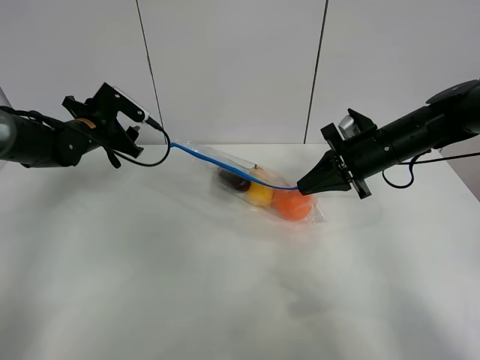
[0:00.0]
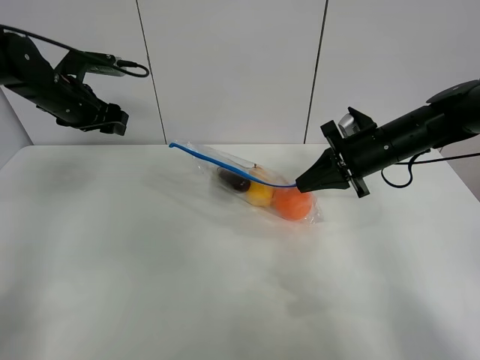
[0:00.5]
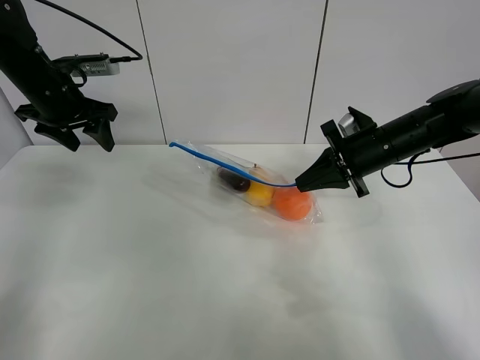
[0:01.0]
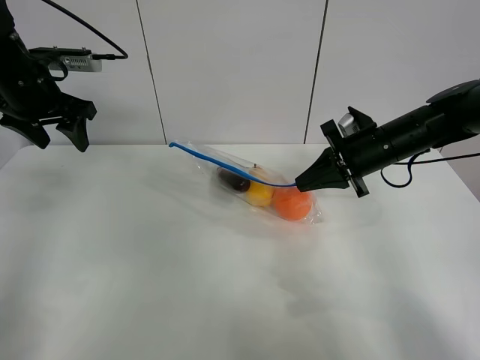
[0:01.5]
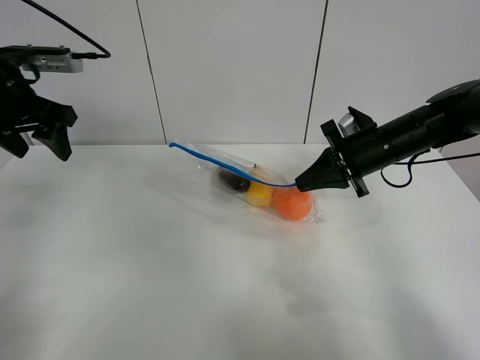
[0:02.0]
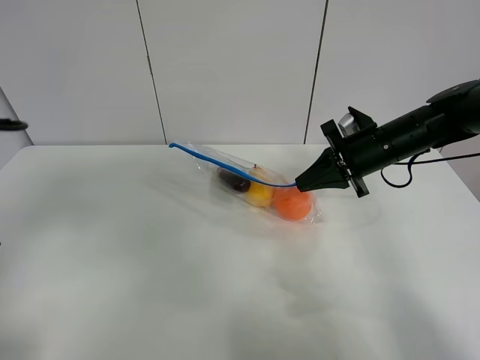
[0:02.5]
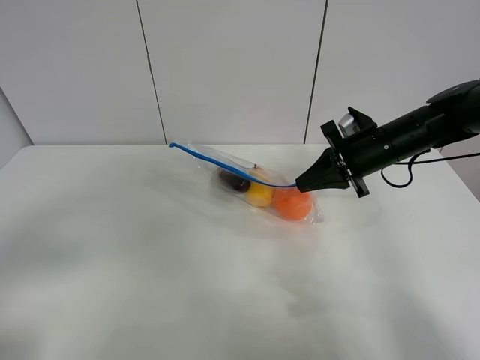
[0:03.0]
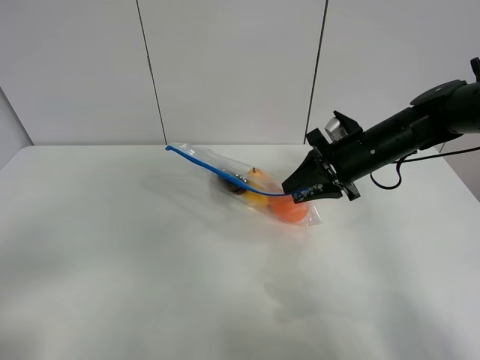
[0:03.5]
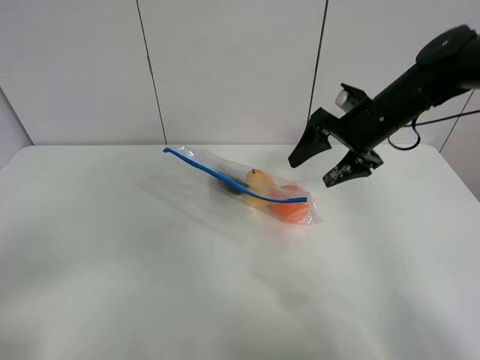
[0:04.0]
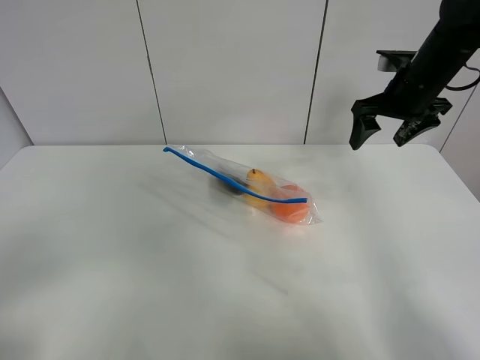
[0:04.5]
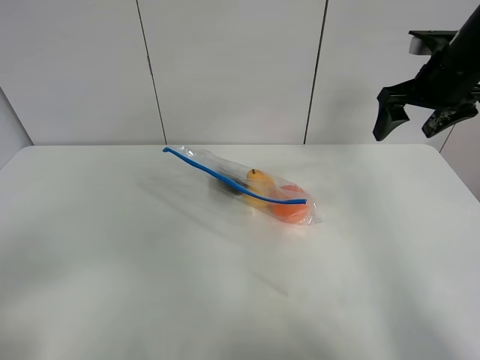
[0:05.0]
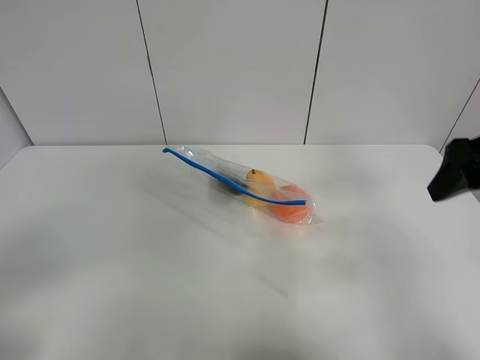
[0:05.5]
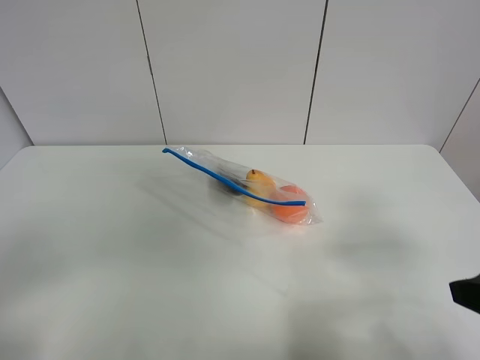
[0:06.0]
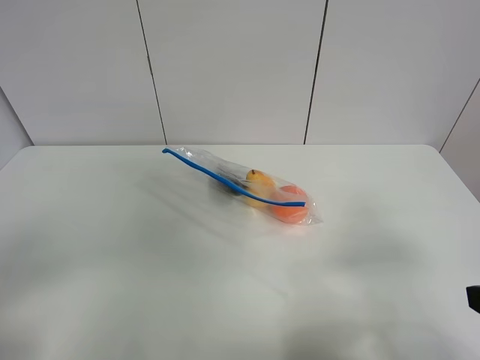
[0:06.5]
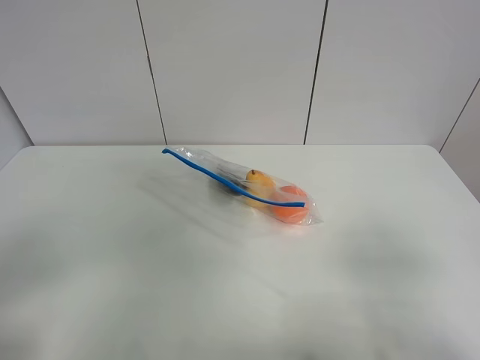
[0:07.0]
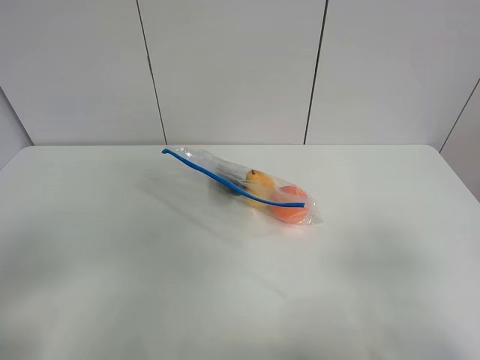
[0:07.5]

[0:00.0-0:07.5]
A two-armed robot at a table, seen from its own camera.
0:00.0 to 0:02.0: The left gripper shifts approximately 20 cm upward and backward.
0:02.0 to 0:04.0: The right gripper ends up some 5 cm from where it was, and opens up; the left gripper travels backward by some 35 cm.
0:04.0 to 0:05.5: The right gripper shifts some 20 cm backward and upward.
0:05.5 to 0:07.5: The right gripper is displaced backward by some 20 cm.

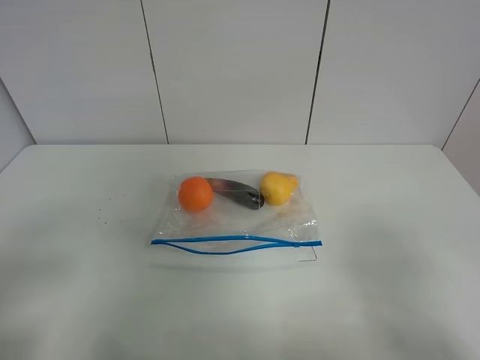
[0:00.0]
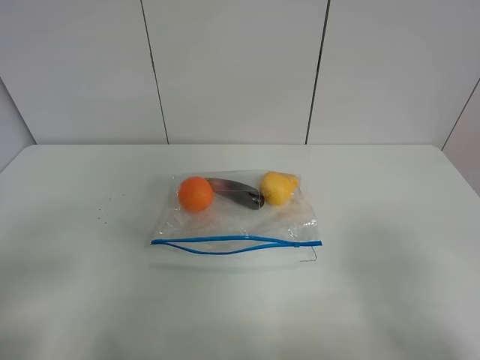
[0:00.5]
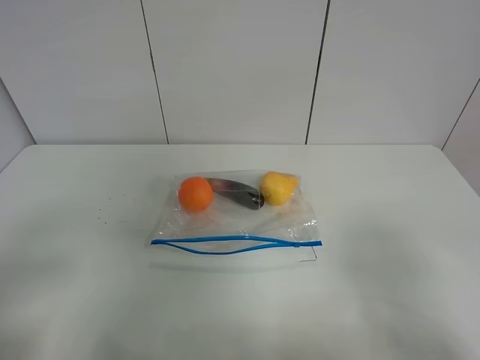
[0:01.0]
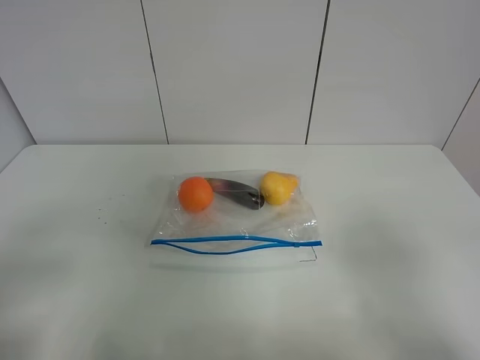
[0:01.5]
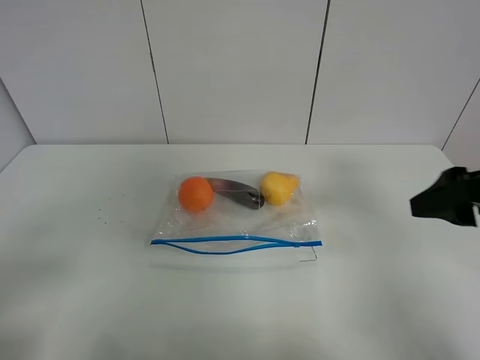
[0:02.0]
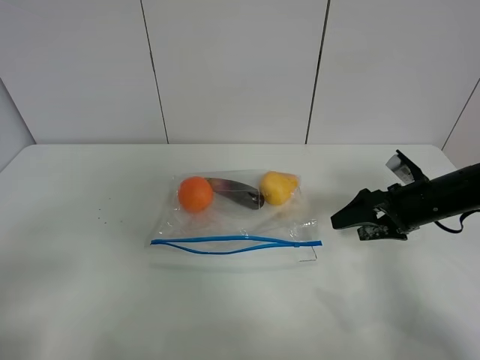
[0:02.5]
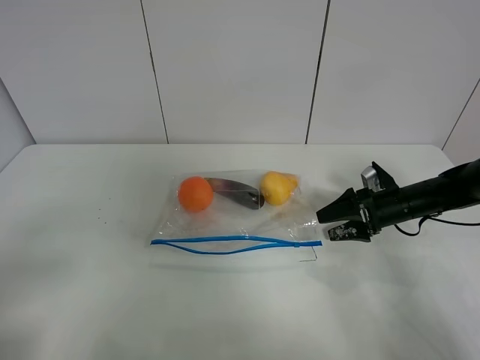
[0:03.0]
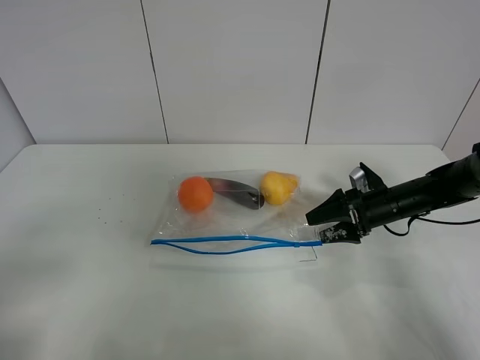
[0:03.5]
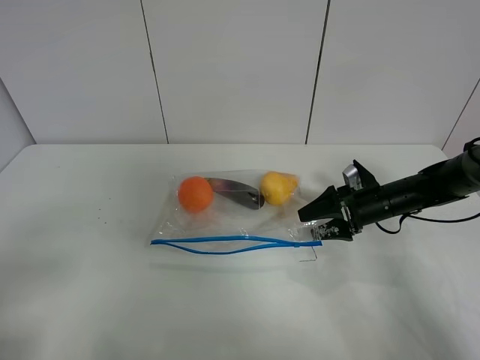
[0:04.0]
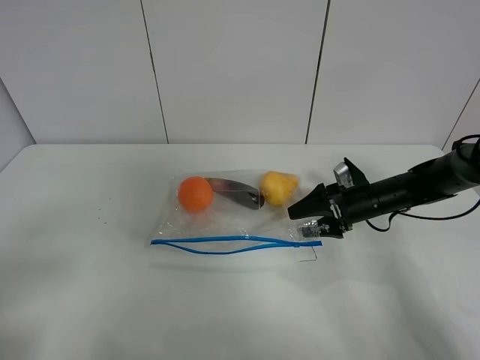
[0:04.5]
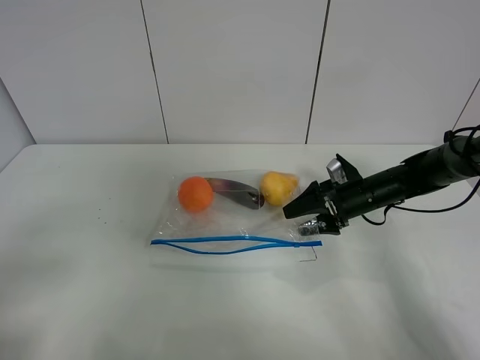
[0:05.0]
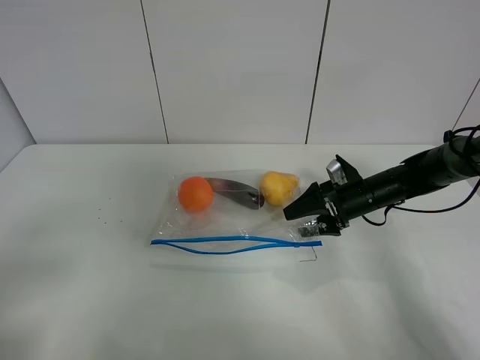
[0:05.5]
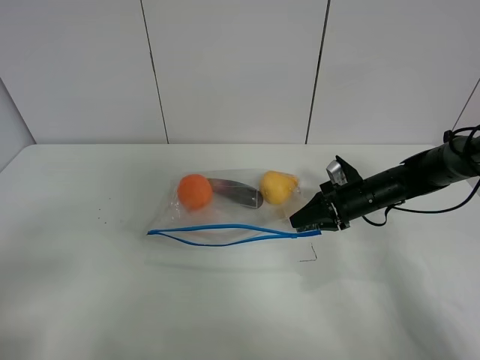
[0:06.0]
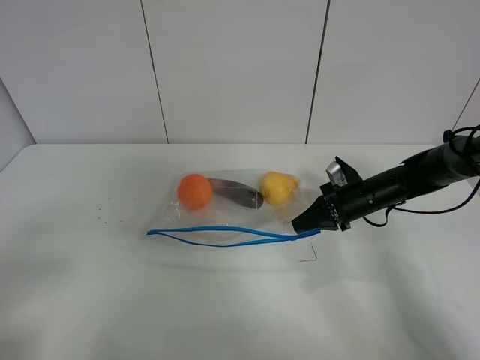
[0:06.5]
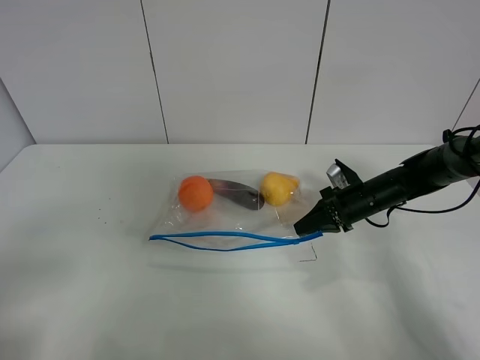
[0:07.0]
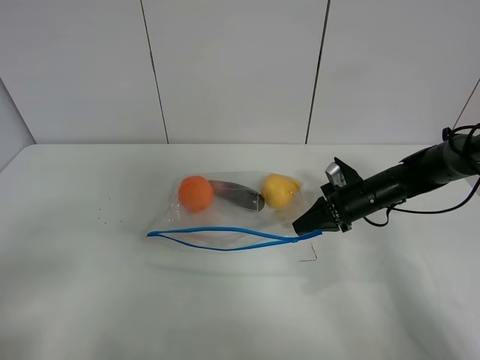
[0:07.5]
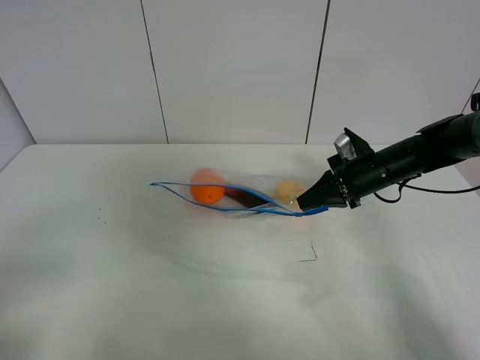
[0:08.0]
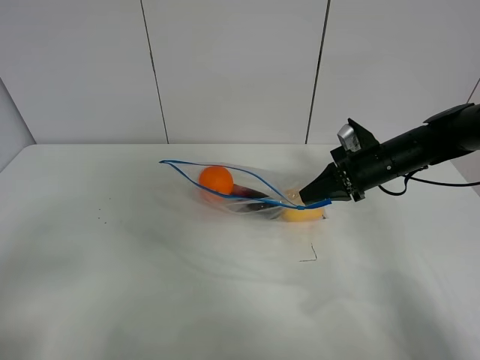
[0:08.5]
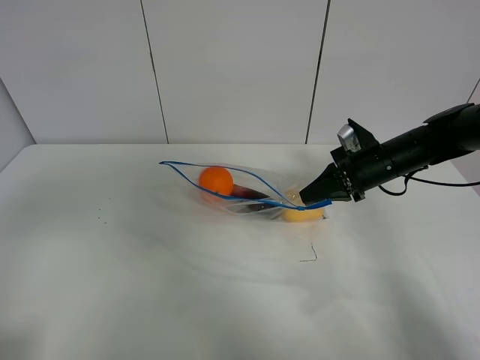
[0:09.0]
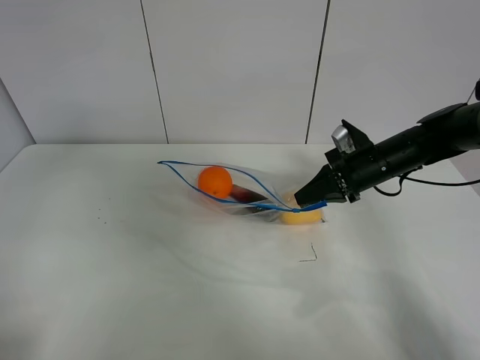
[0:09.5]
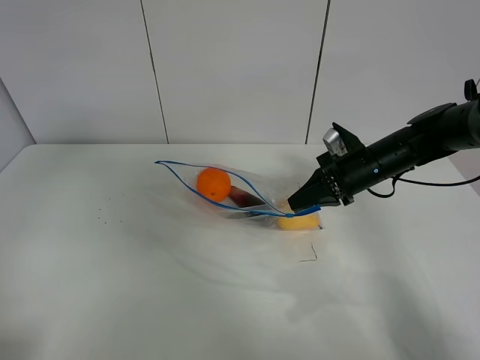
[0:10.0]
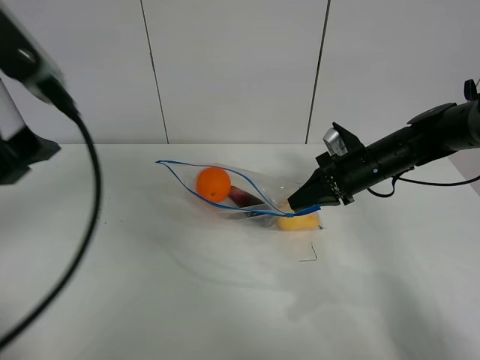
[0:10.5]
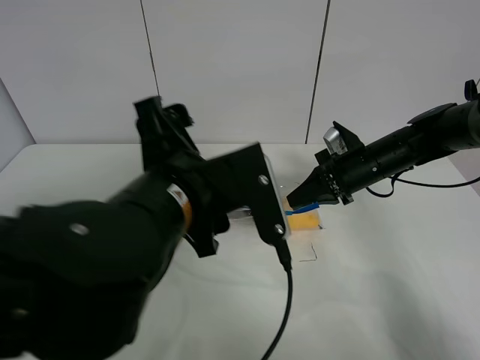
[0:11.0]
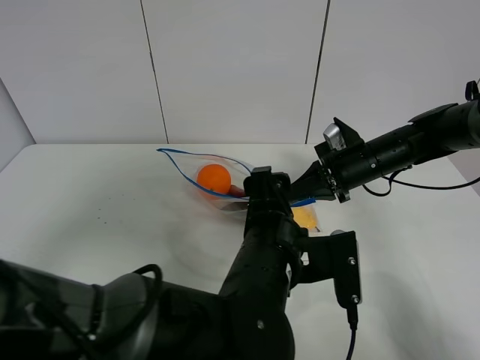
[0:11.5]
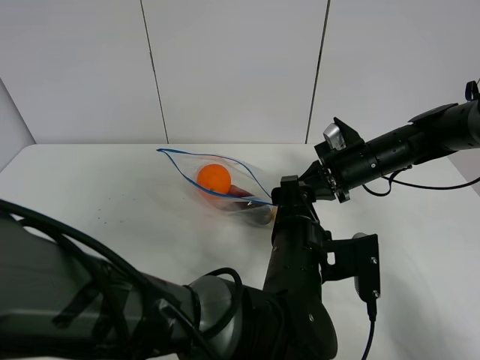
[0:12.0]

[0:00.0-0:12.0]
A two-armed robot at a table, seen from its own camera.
Step, 0:00.0 to 0:06.5: Grasp the fruit bag with right gripper.
Step, 0:07.0 to 0:08.5: Lift the fruit bag with your right gripper.
0:00.0 to 0:02.0: The right gripper heads forward, covering roughly 20 cm.
0:02.0 to 0:04.0: The right gripper shifts approximately 30 cm downward and forward.
0:04.0 to 0:06.0: The right gripper closes up.
0:06.0 to 0:08.0: The right gripper moves upward, roughly 5 cm.
0:08.0 to 0:10.0: The left gripper goes about 20 cm upward and forward.
0:10.0 to 0:12.0: The left gripper moves to the right and downward, some 50 cm.

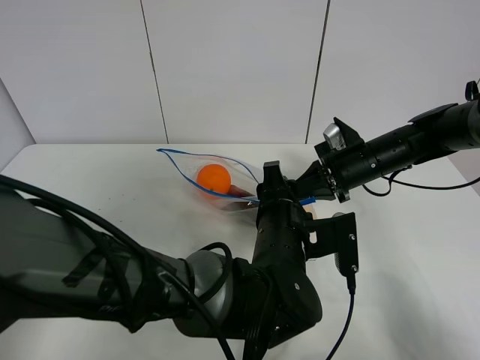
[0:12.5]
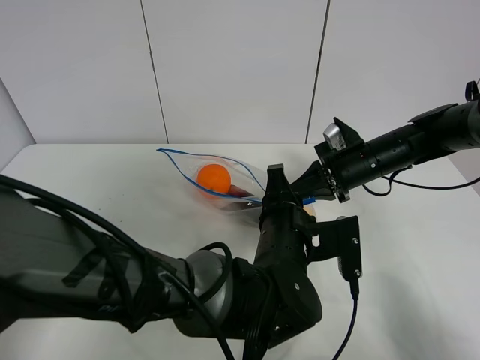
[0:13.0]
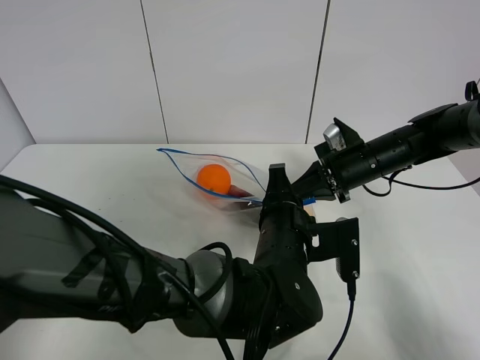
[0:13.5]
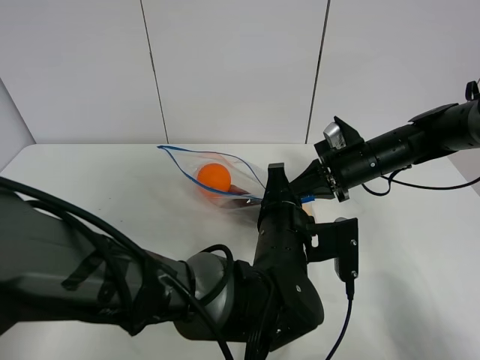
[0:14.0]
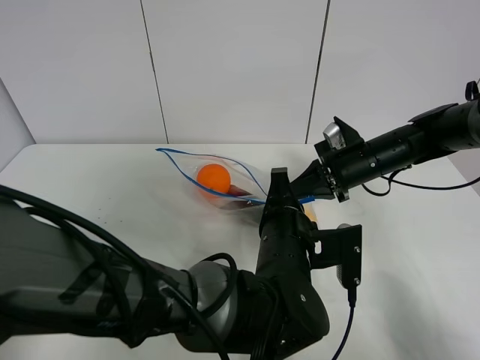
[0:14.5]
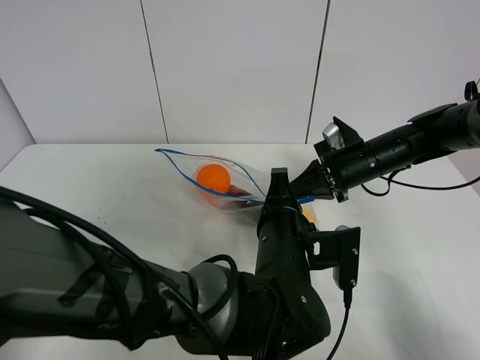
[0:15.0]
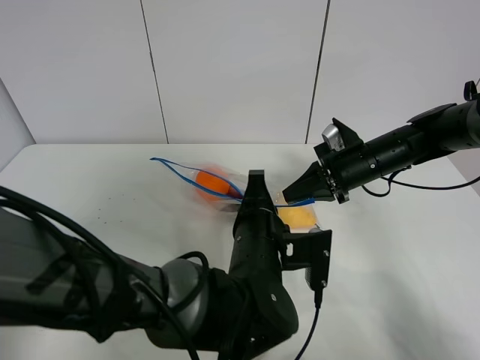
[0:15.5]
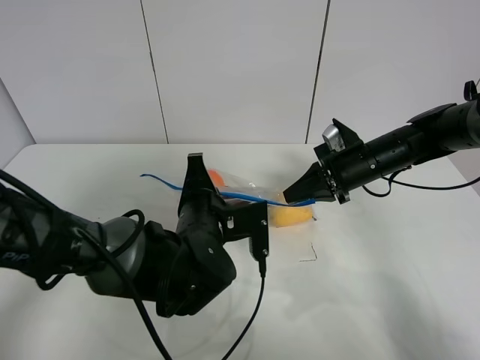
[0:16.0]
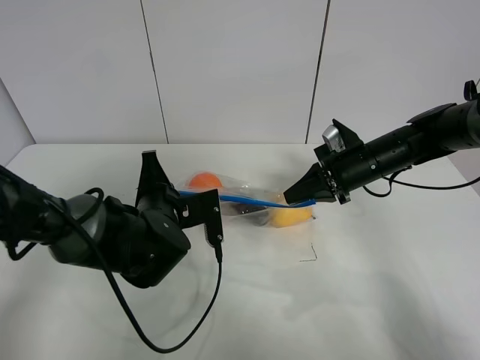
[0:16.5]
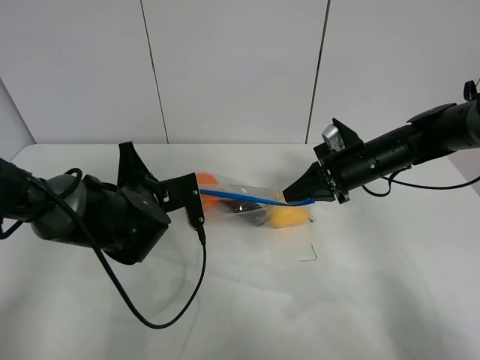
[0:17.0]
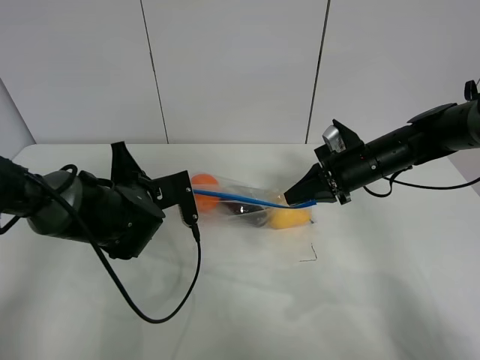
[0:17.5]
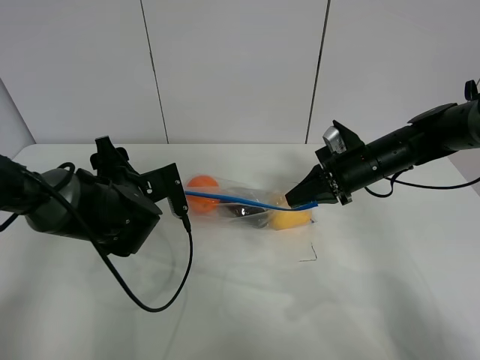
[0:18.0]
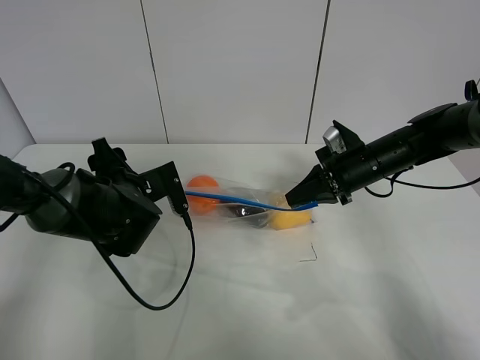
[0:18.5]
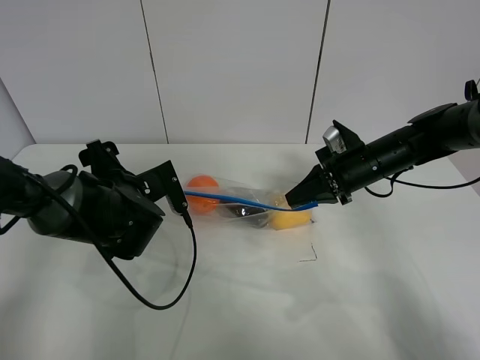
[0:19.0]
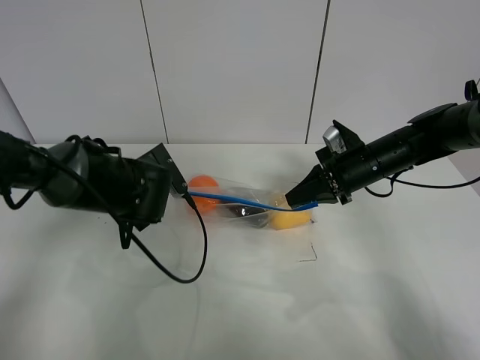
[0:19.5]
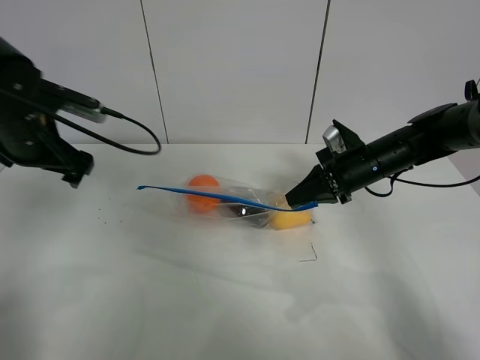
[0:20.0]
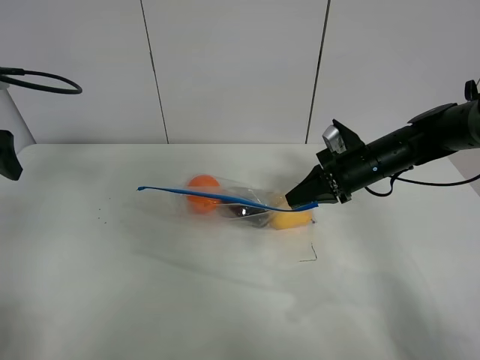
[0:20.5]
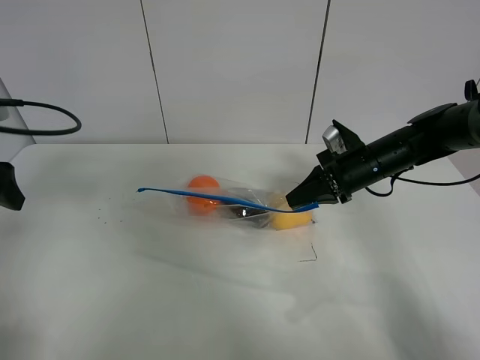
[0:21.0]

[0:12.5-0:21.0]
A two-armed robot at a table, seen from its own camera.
Step, 0:12.5 to 0:17.5: Pull the fruit bag with left gripper.
0:12.5 to 0:14.5: The left gripper closes up.
0:14.5 to 0:16.5: The left gripper shifts about 20 cm to the left and forward.
0:16.5 to 0:19.0: The left gripper changes place by about 5 cm, and opens its fingers.
0:19.0 to 0:21.0: The left gripper is displaced to the left and upward by some 25 cm.
